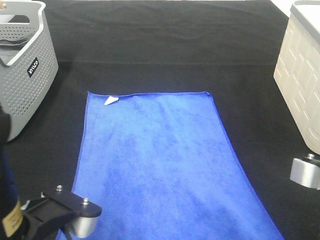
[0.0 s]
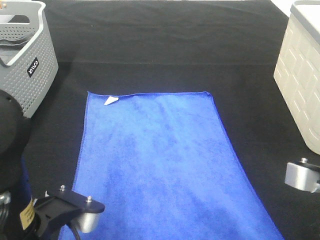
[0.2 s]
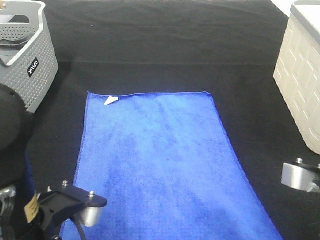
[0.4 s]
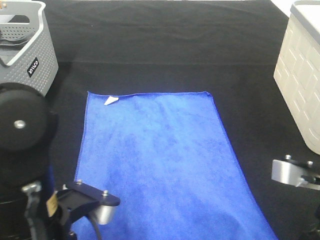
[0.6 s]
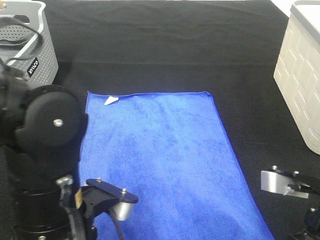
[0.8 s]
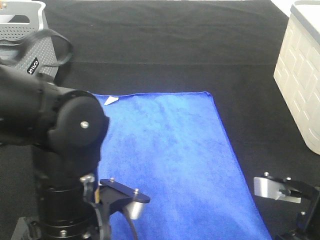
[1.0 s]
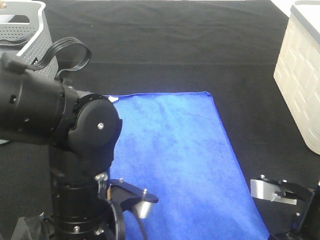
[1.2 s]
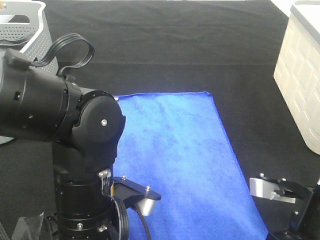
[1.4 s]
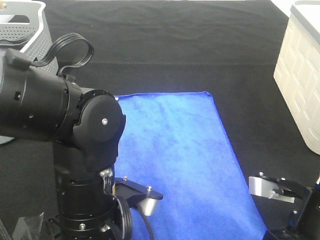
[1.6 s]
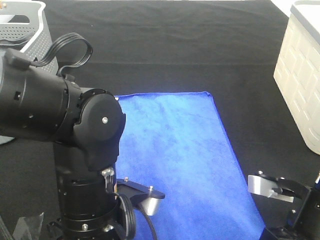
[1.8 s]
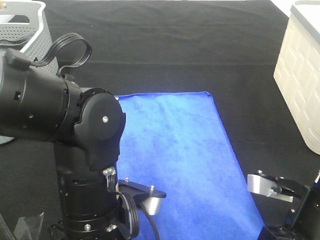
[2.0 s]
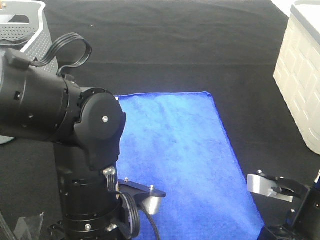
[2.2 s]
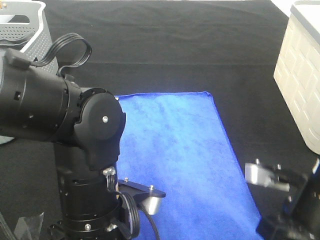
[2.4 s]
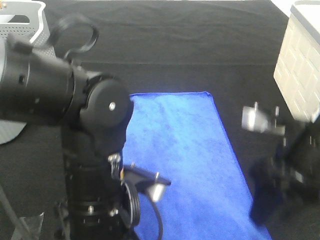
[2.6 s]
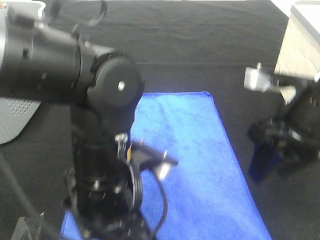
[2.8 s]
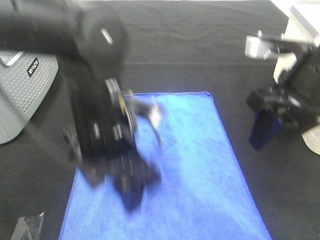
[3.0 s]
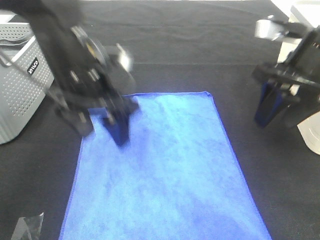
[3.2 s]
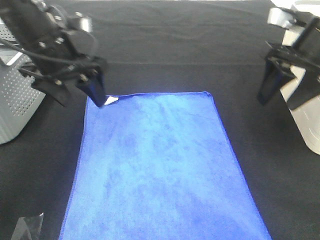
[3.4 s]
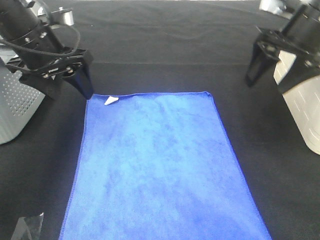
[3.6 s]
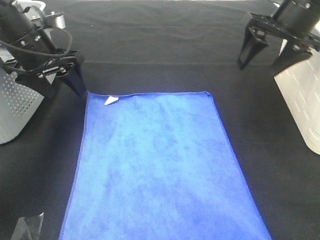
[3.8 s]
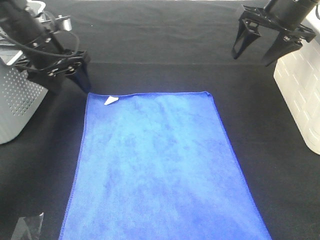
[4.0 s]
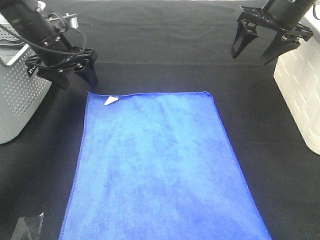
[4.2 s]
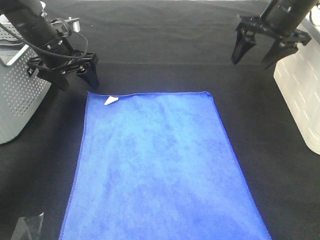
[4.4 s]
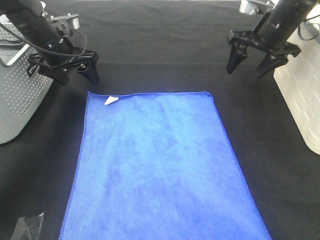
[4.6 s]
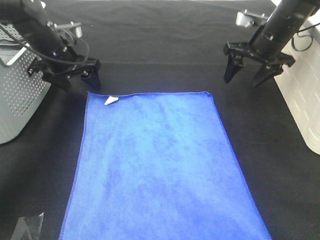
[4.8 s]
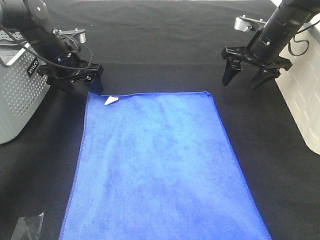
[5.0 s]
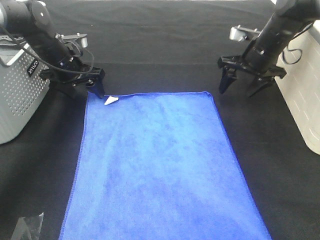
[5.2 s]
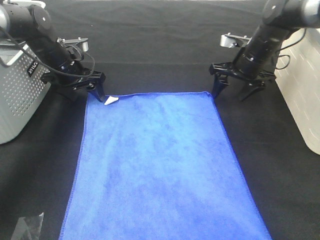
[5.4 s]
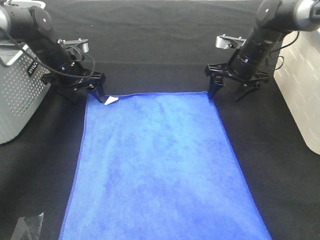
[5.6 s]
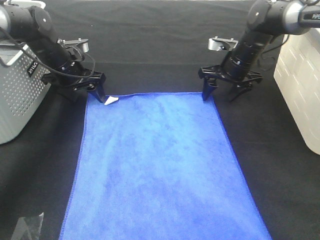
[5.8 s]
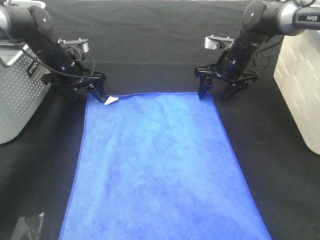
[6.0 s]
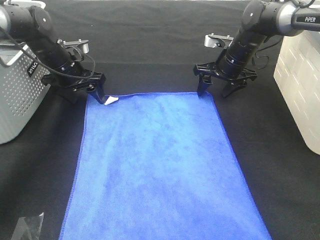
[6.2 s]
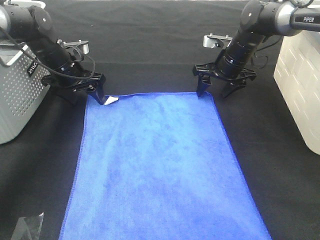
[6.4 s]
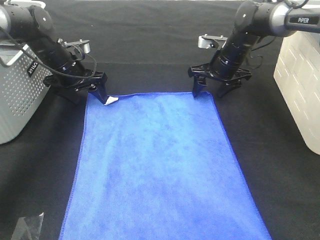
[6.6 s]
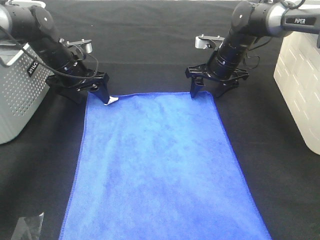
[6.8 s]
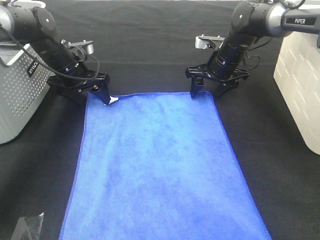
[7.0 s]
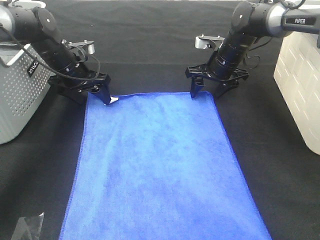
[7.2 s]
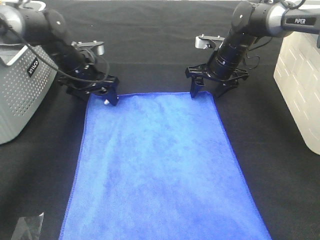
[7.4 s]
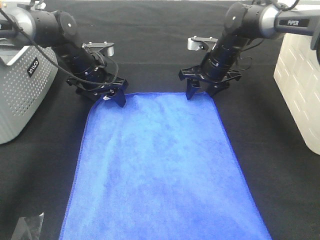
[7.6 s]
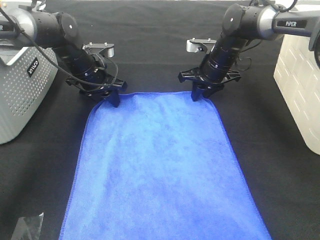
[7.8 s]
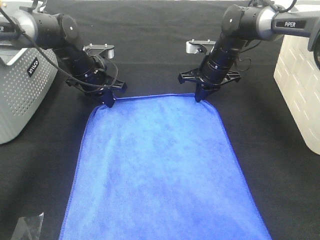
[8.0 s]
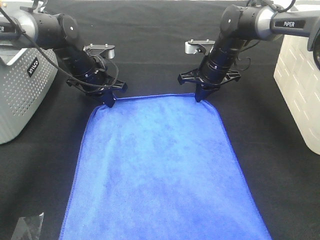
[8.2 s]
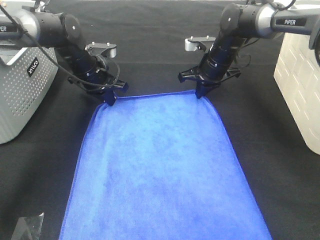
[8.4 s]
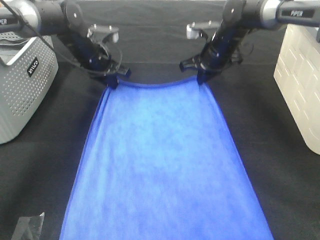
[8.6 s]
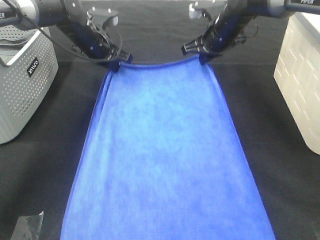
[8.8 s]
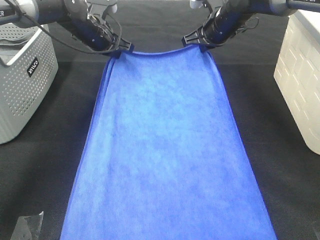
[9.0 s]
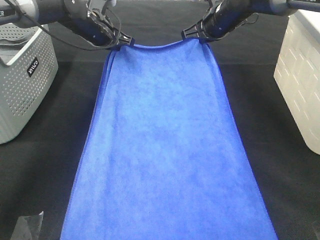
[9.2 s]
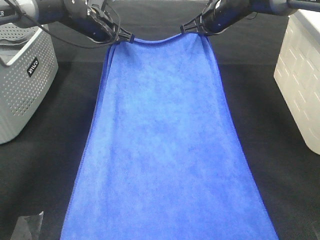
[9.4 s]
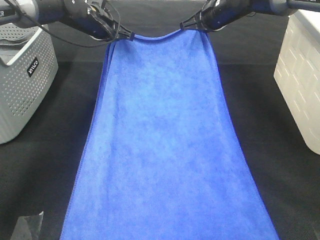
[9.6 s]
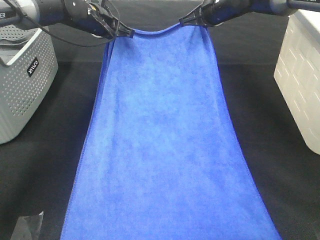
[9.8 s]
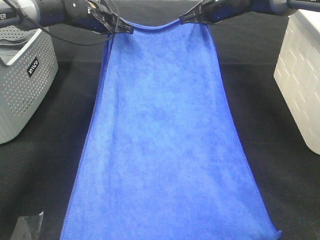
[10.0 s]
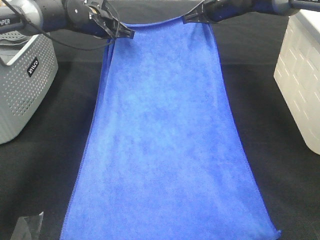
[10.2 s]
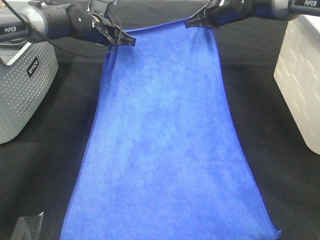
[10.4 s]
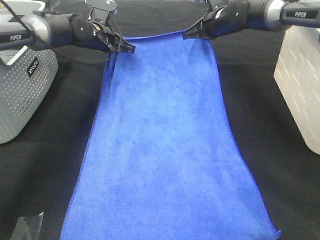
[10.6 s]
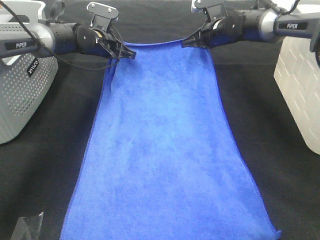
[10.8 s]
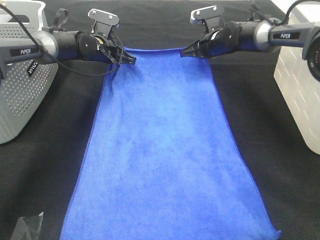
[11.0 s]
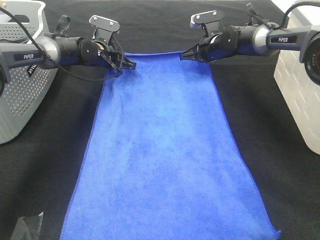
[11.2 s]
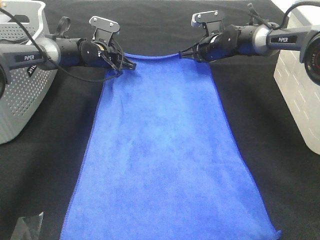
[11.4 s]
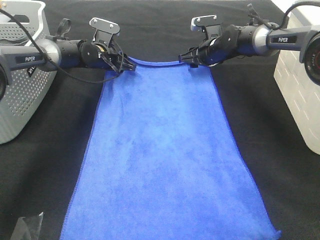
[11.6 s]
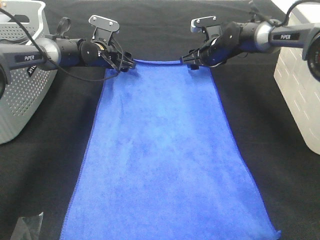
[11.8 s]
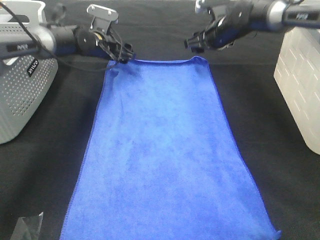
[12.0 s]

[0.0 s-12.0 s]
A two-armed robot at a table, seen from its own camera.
Task of the whole recording: Remove the towel and place it.
Step, 0.0 to 5.2 s: Left hand:adjust the blue towel.
Step, 0.0 to 5.2 s: Right hand:adjust the blue towel.
0.0 to 1.6 s: The right gripper moves downward, roughly 5 cm; the left gripper goes some 10 cm to the right and forward.
1.6 to 3.0 s: The left gripper shifts about 10 cm forward and upward, and opens up. The right gripper travels upward and forward by some 15 cm, and opens its fingers.
3.0 to 4.4 s: The right gripper heads forward, covering approximately 20 cm. Meanwhile the left gripper travels forward and to the left by approximately 25 cm.
4.4 to 6.0 s: The right gripper heads downward and forward, covering some 15 cm, while the left gripper goes about 5 cm downward.
6.0 to 7.6 s: The left gripper heads to the right, covering some 5 cm.
7.6 to 9.0 s: The two grippers go roughly 5 cm upward. The right gripper closes. Meanwhile the left gripper closes its fingers.
10.4 to 12.0 s: The left gripper opens. Meanwhile the right gripper moves roughly 10 cm downward and comes back, and opens.

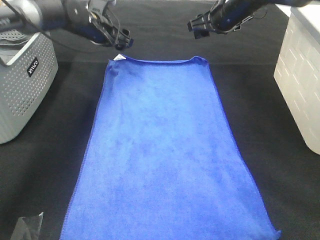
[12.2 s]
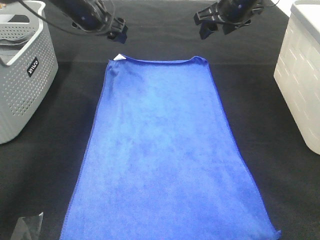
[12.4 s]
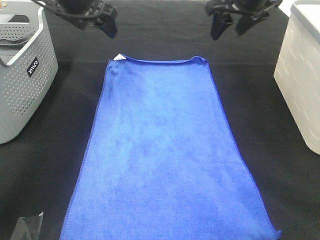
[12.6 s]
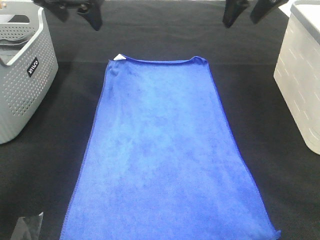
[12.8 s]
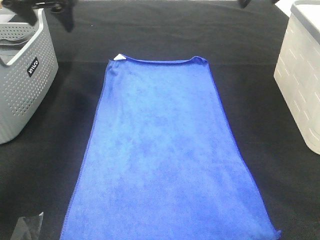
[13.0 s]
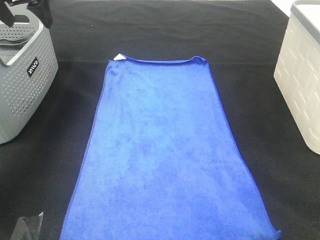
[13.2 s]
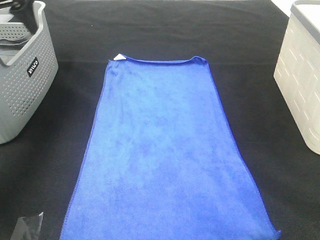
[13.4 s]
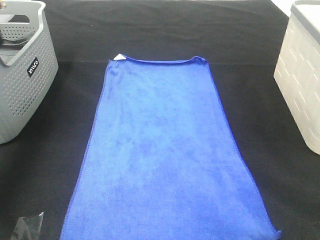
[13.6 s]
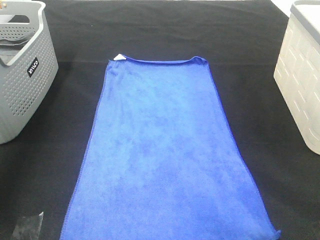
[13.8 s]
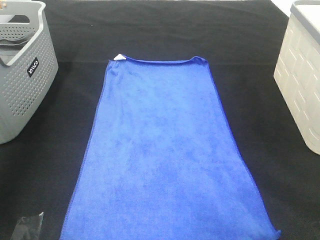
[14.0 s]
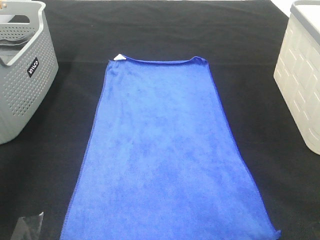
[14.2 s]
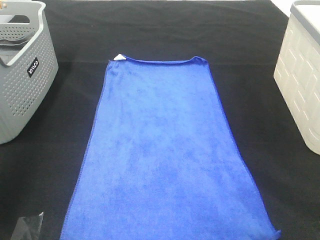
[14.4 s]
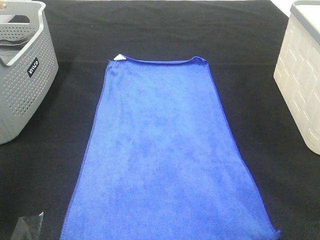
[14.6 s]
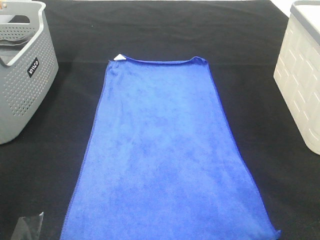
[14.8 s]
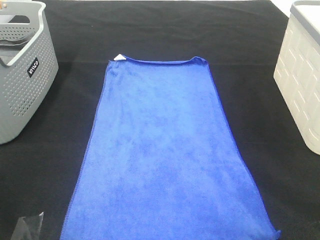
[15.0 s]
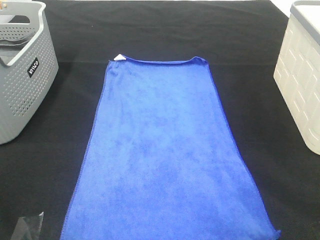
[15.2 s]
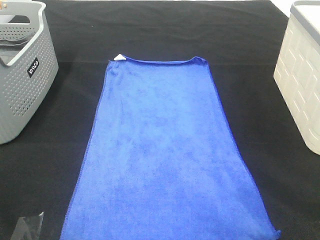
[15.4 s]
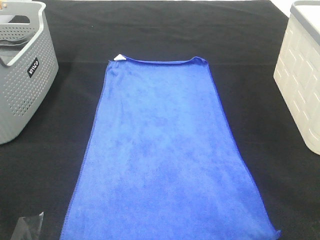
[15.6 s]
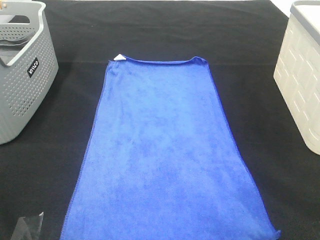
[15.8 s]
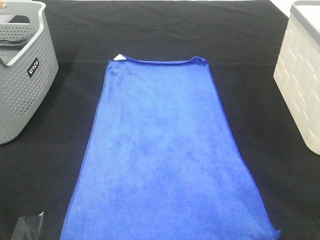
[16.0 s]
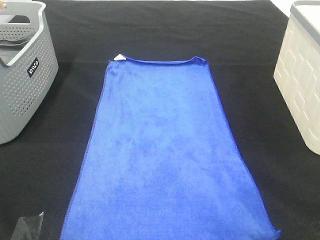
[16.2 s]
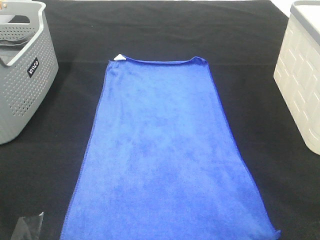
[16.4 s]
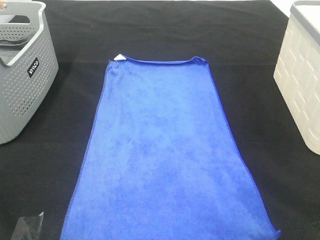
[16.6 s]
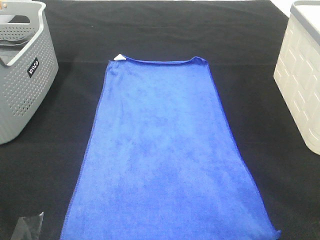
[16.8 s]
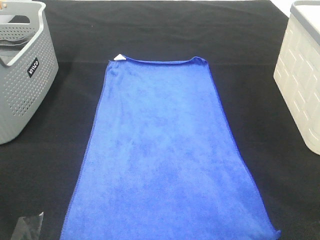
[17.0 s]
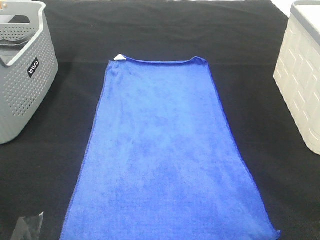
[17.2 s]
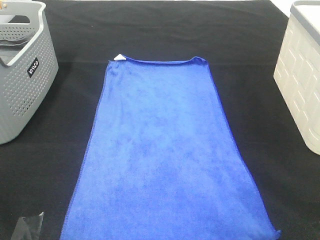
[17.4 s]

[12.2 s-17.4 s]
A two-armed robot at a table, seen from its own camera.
Task of the whole recording: Remove the towel and place it.
12.2 to 14.0 s: The left gripper travels backward, upward and to the left by roughly 40 cm, while the right gripper is displaced backward and upward by roughly 50 cm.
14.0 to 15.6 s: The left gripper travels backward by approximately 30 cm; the right gripper shifts some 20 cm downward and backward.

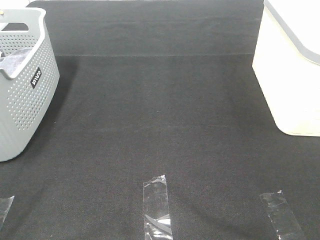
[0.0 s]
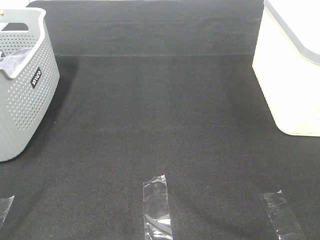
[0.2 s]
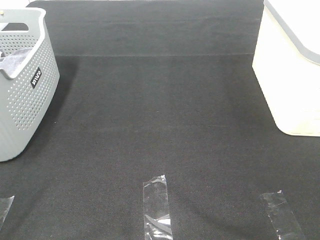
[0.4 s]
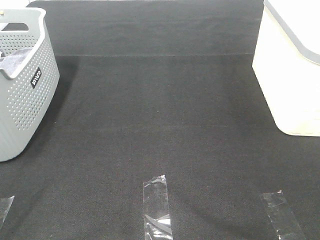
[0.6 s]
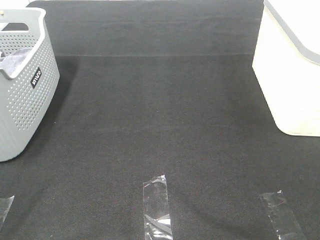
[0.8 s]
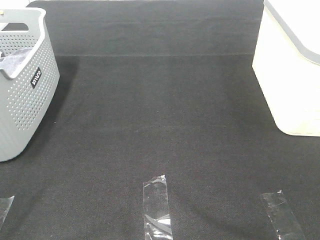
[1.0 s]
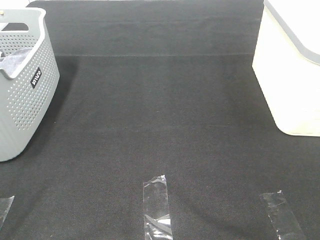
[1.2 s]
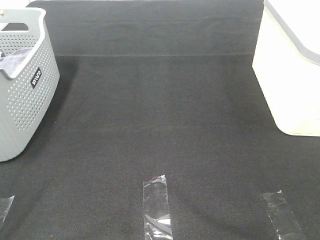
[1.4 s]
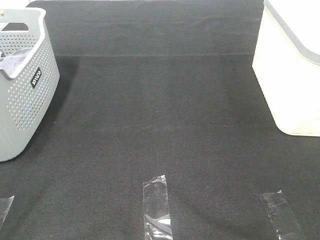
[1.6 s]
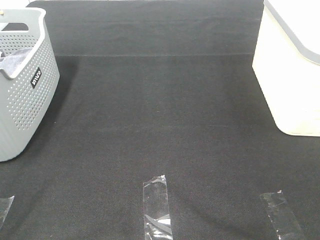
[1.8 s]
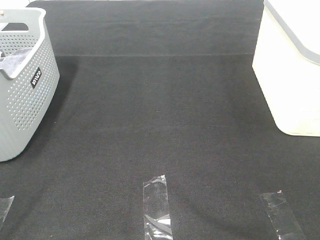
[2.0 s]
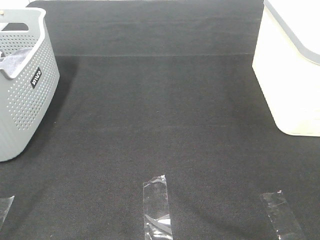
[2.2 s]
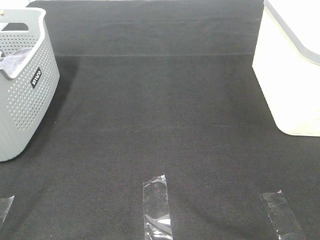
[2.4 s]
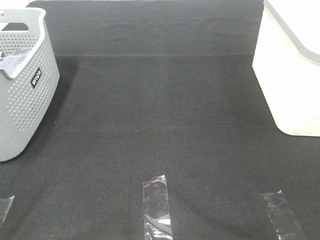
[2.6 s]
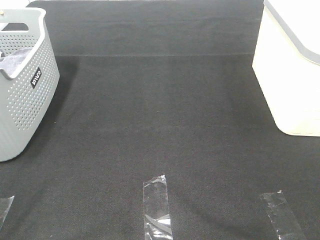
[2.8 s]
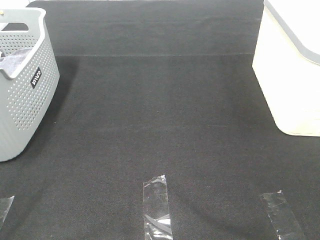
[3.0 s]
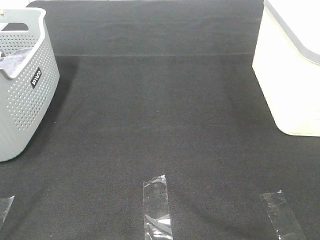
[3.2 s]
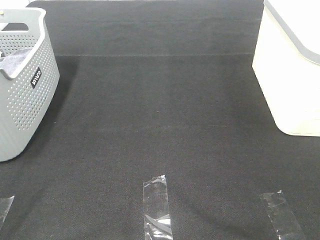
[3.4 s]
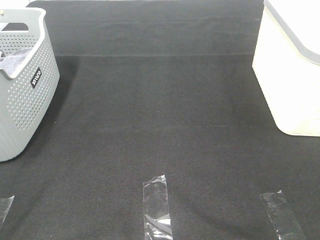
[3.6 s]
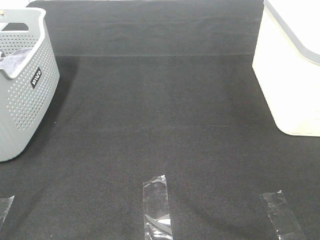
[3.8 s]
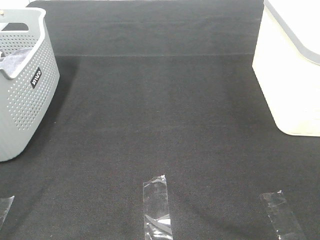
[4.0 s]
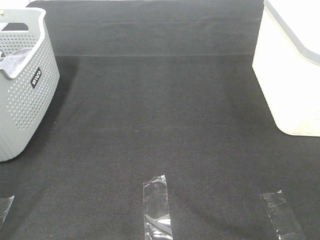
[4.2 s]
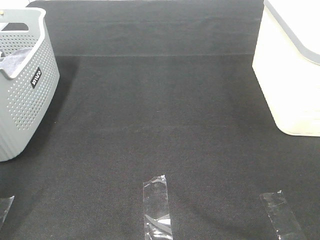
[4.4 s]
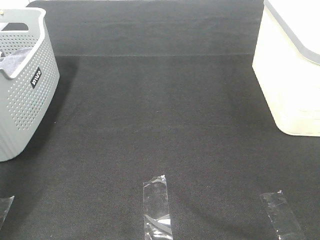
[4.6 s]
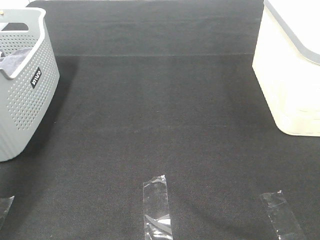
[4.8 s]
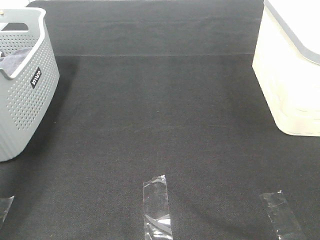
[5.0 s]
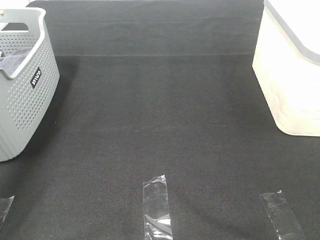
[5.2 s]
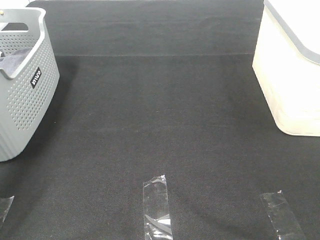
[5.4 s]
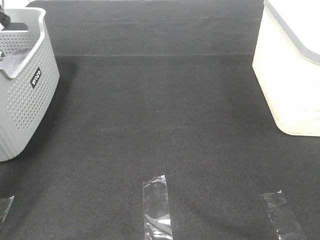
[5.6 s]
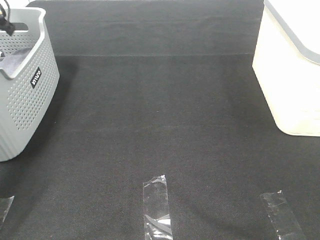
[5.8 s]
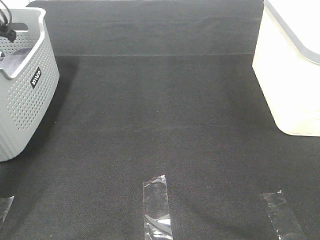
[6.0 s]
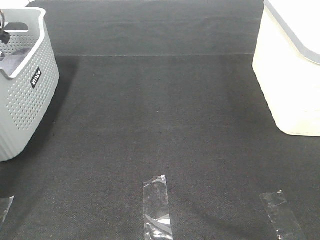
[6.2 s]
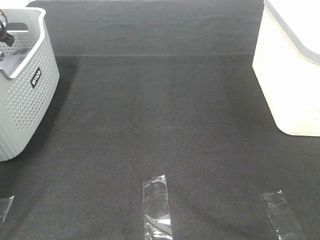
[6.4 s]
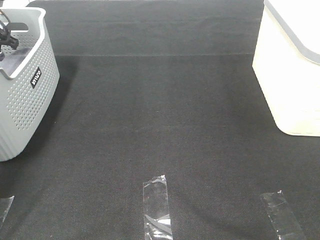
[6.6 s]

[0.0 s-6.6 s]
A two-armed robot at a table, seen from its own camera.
Task of the whole recording: Remove the towel and place it.
0.0 to 3.2 s: The two grippers keep their place.
3.2 to 5.0 s: The left gripper is displaced forward by approximately 40 cm.
5.0 to 6.6 s: The left gripper is displaced forward and downward by about 20 cm.
